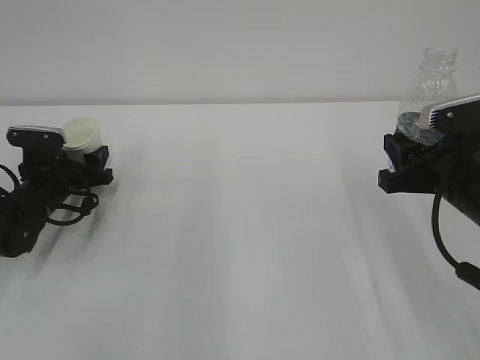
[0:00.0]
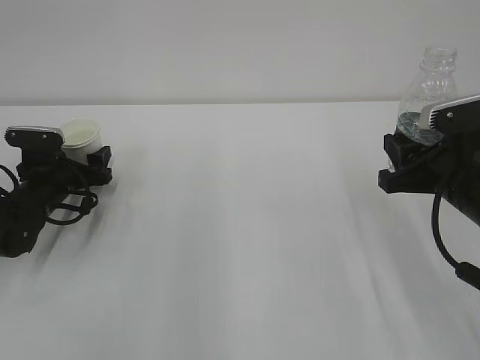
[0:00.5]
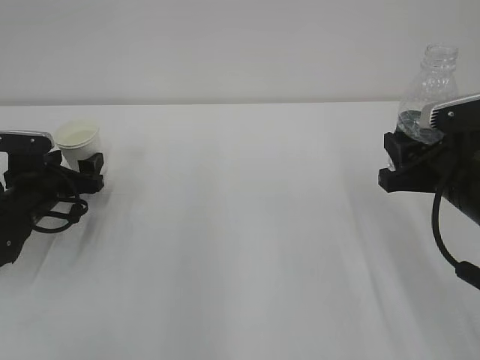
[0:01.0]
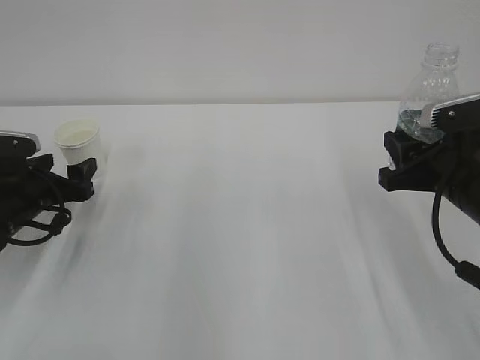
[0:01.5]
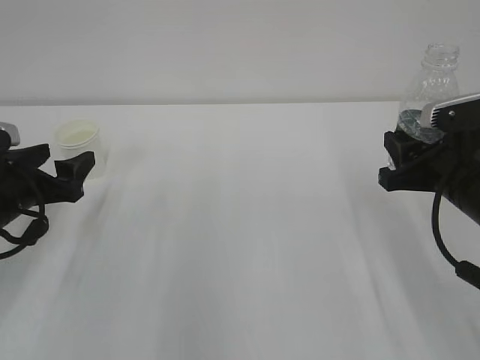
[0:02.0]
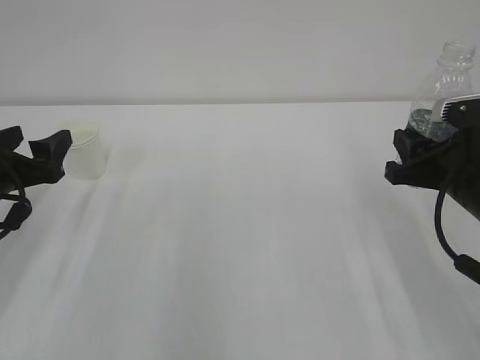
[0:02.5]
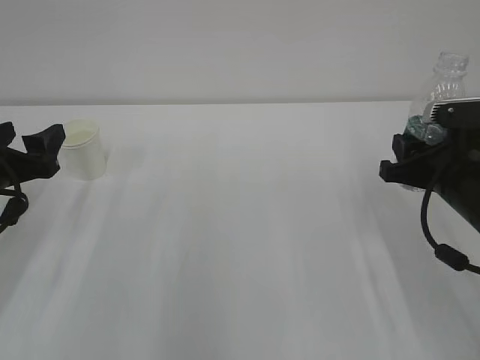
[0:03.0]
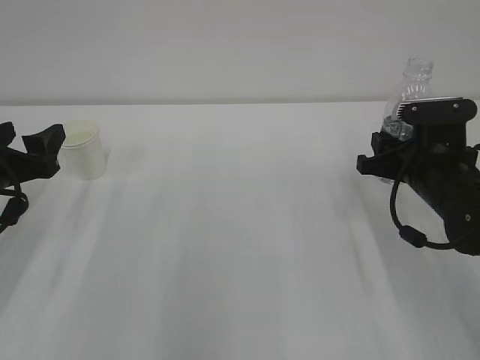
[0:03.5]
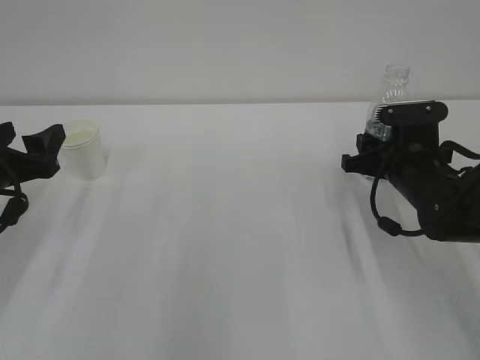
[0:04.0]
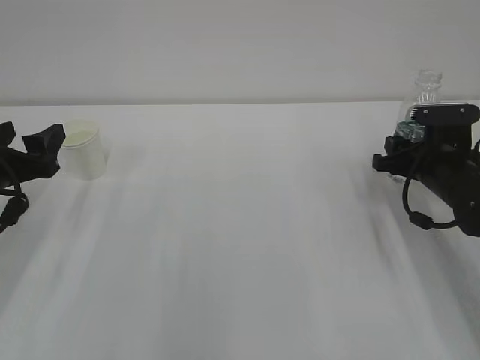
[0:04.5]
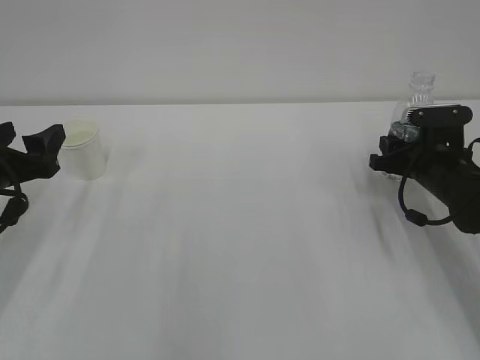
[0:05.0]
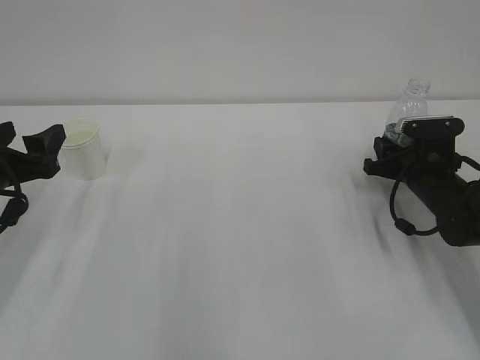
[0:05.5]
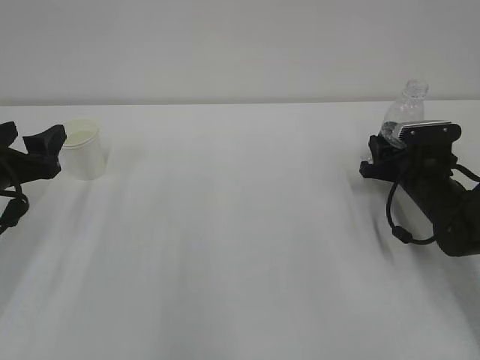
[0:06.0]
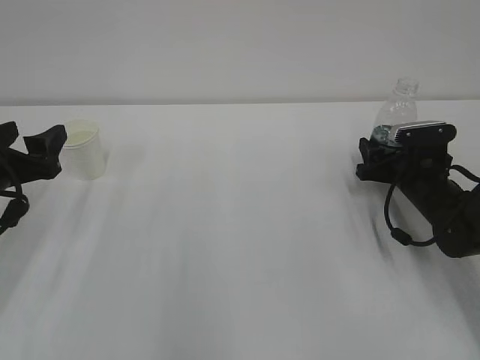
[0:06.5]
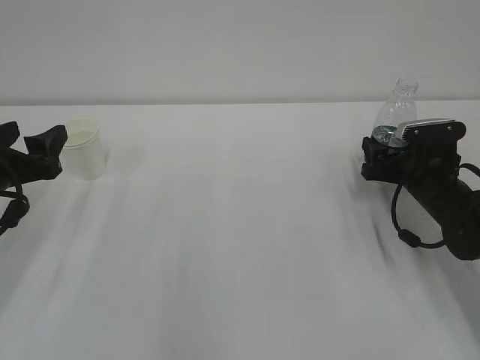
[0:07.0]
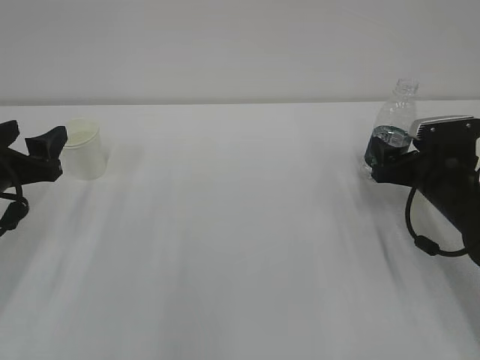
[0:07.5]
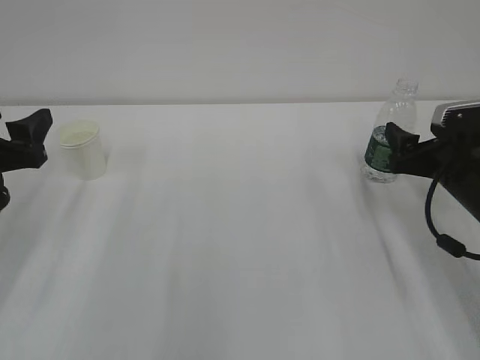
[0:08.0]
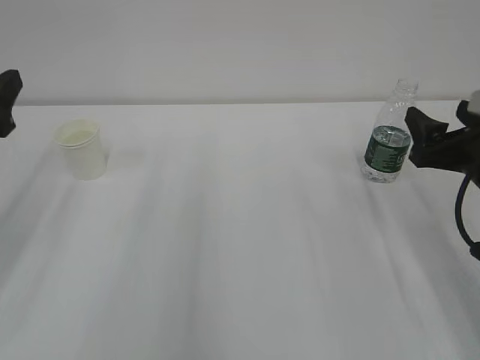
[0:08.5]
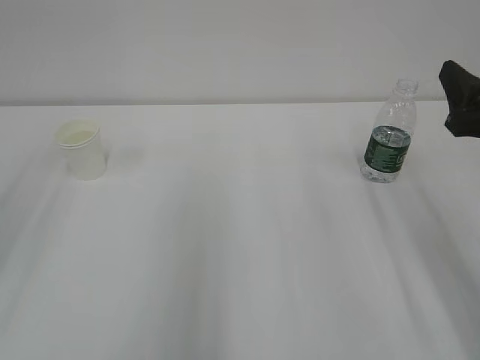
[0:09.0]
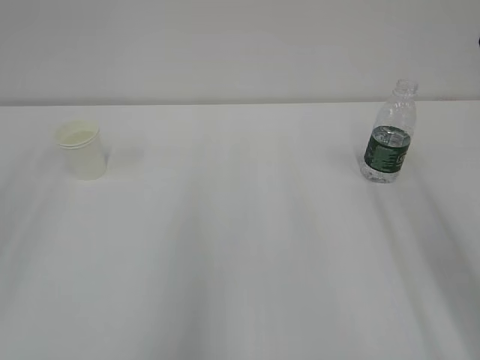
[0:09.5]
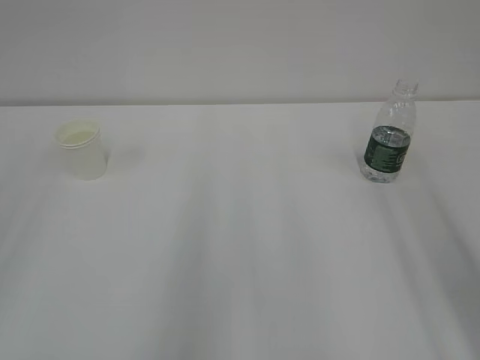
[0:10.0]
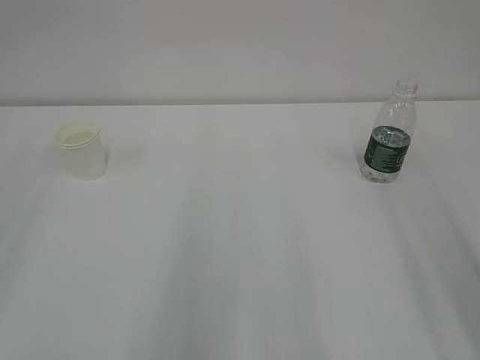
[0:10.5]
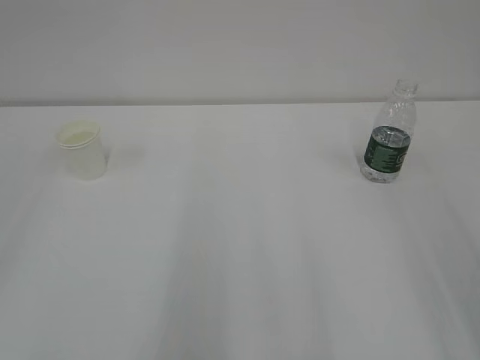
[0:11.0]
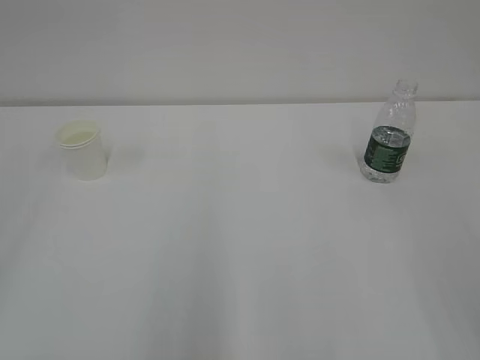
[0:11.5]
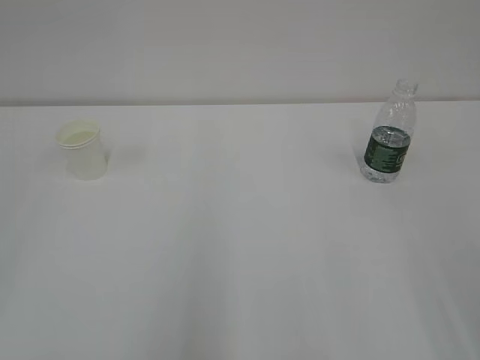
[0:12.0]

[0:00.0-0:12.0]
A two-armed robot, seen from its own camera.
0:00.0 to 0:02.0: The left gripper shifts approximately 15 cm backward and upward, and opens up.
0:02.0 to 0:04.0: The right gripper goes roughly 10 cm forward and downward.
0:04.0 to 0:06.0: The right gripper is displaced downward and to the right by roughly 5 cm.
0:06.0 to 0:08.0: The right gripper shifts approximately 10 cm upward and backward, and opens up.
0:08.0 to 0:10.0: Both grippers move upward and backward, some 25 cm.

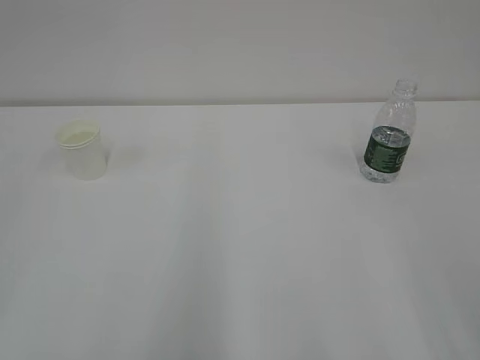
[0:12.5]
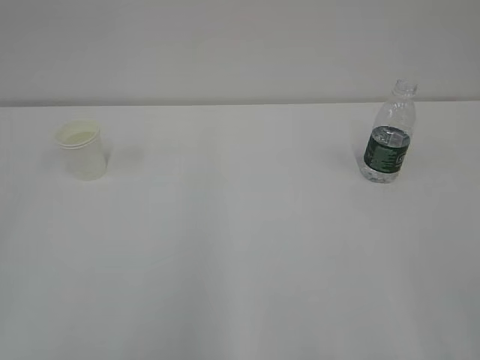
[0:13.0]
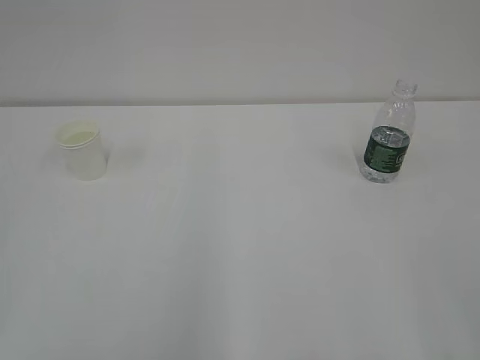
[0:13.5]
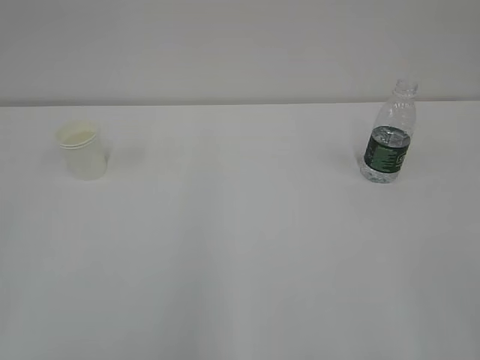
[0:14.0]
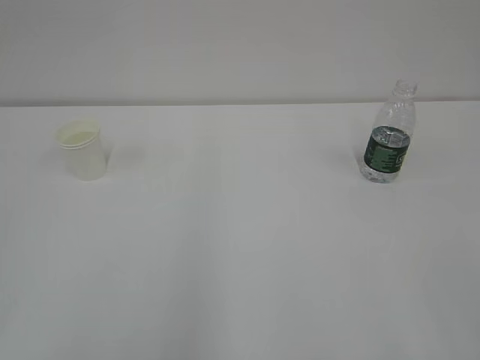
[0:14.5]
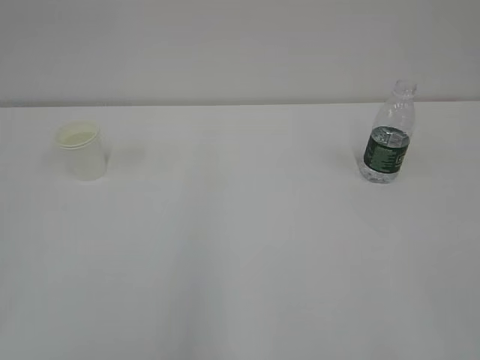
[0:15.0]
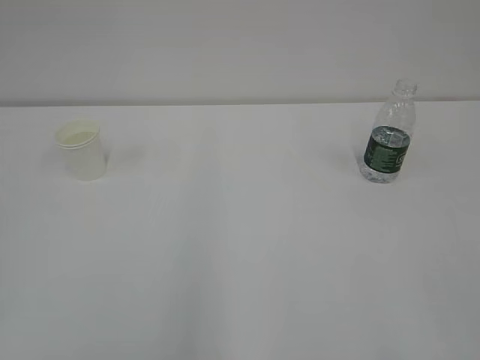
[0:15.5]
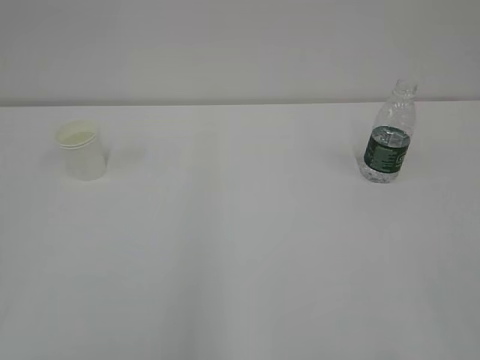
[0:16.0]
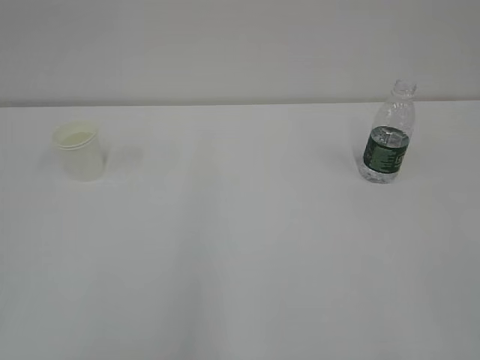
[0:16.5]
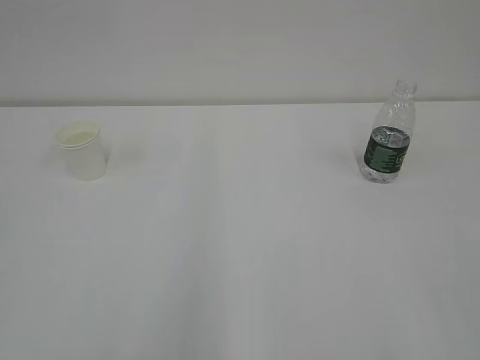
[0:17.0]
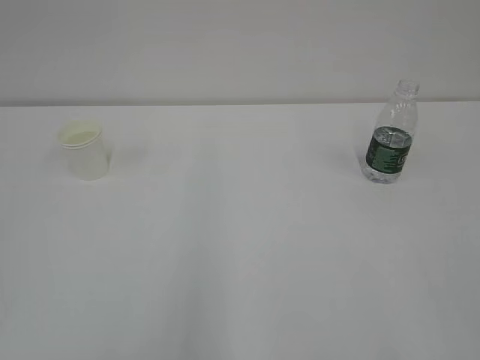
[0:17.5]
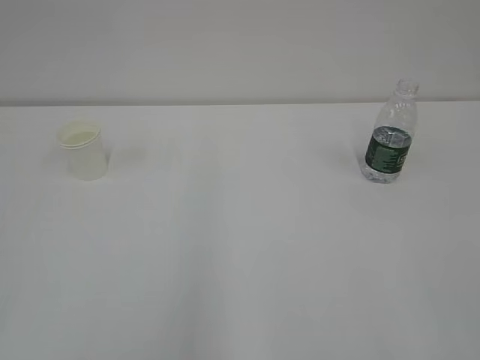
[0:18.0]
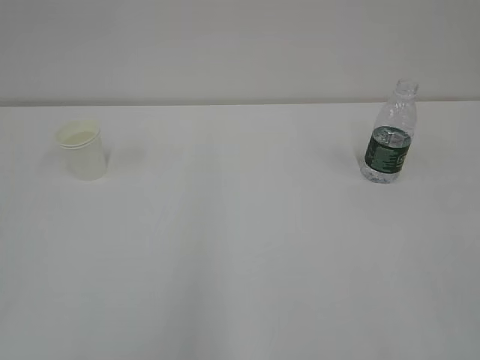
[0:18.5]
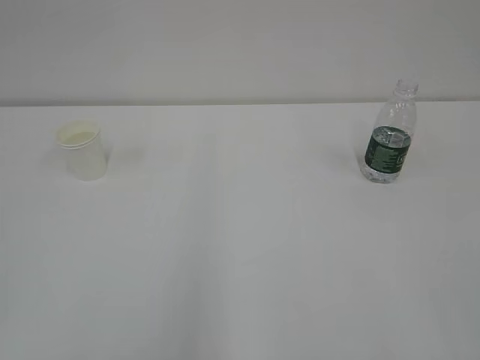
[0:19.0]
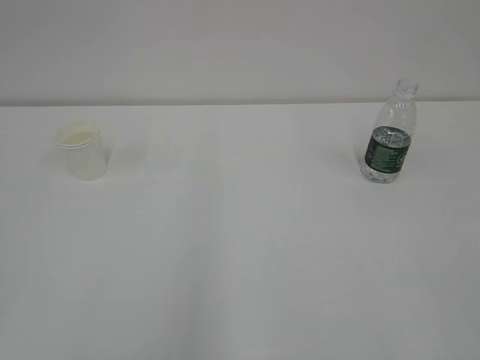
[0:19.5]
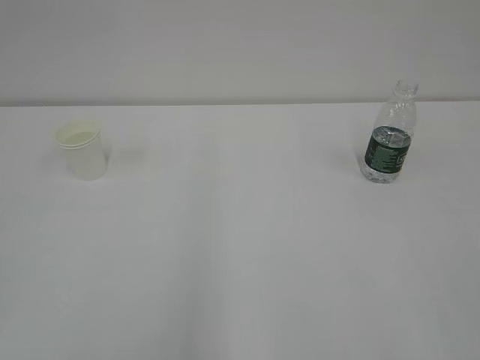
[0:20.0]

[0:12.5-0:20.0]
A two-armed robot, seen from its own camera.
0:16.5 to 0:18.0: Both grippers stay put.

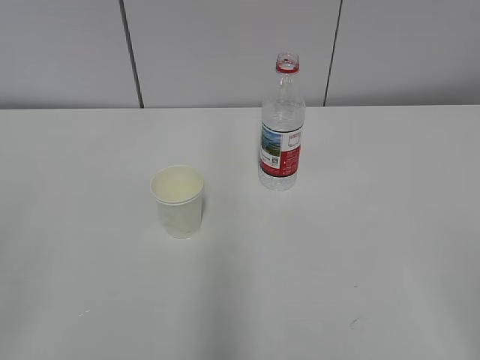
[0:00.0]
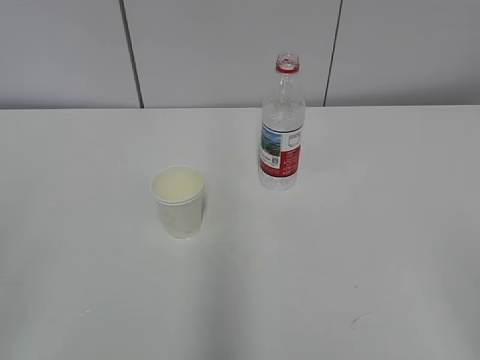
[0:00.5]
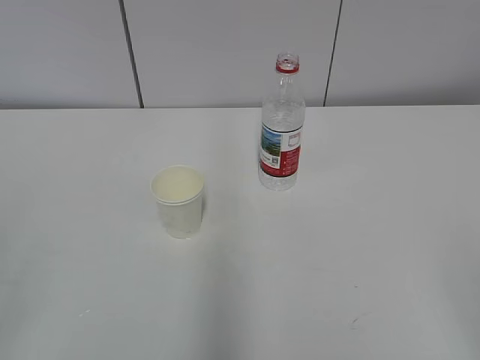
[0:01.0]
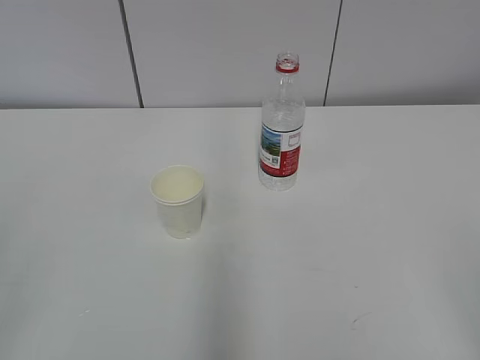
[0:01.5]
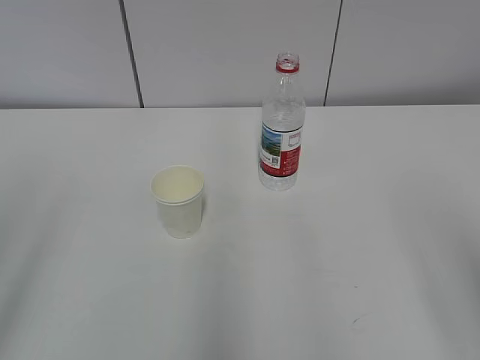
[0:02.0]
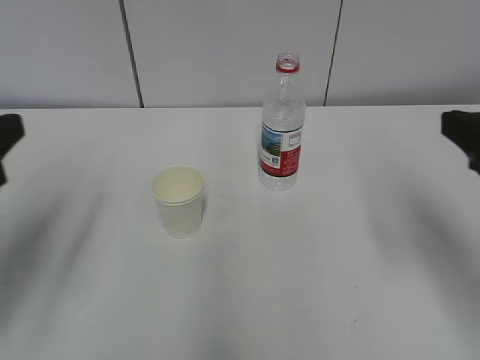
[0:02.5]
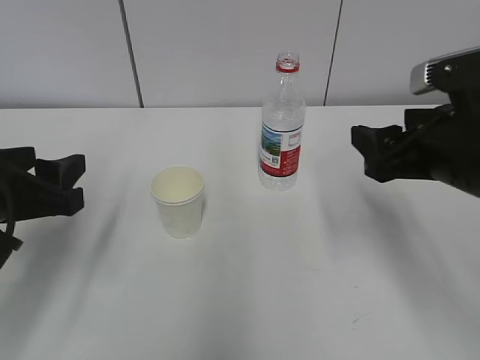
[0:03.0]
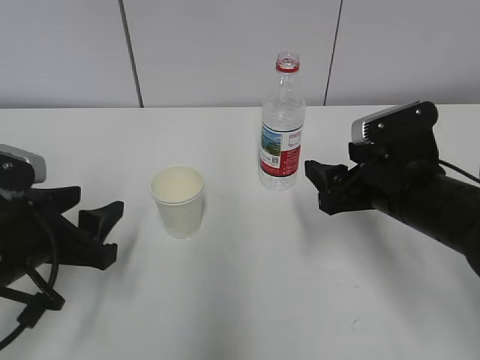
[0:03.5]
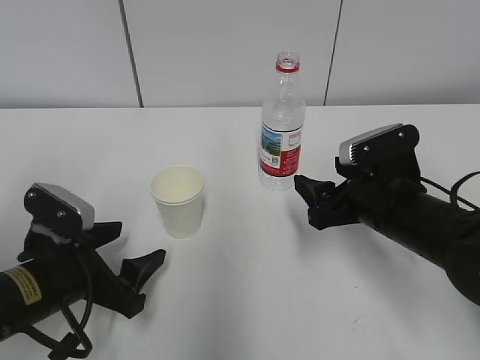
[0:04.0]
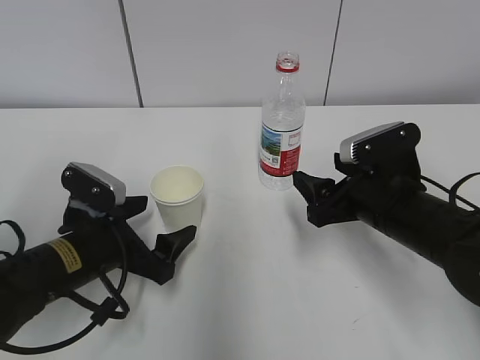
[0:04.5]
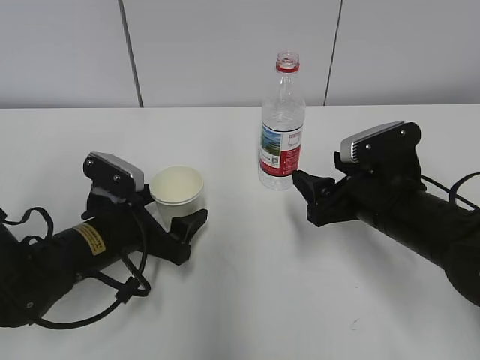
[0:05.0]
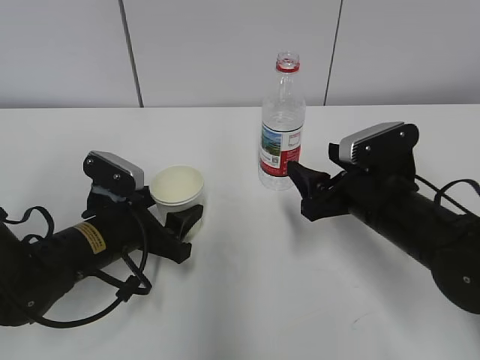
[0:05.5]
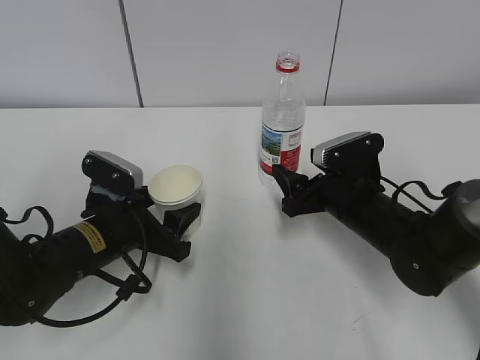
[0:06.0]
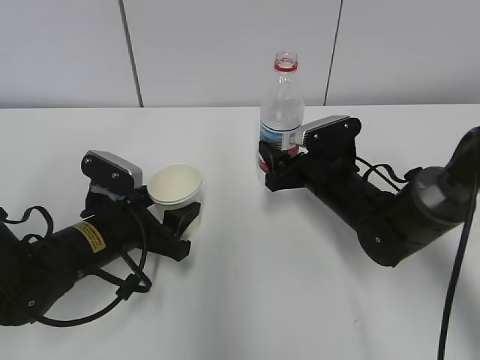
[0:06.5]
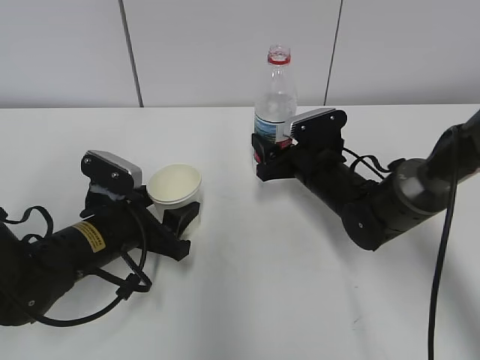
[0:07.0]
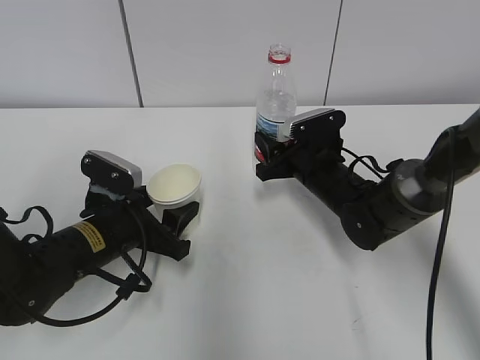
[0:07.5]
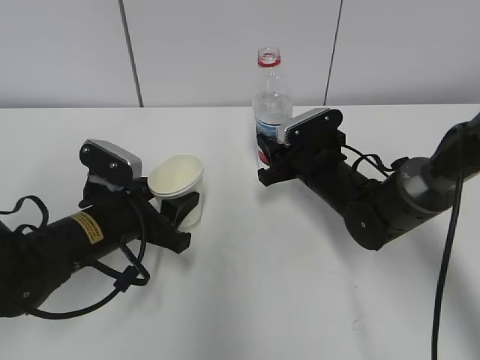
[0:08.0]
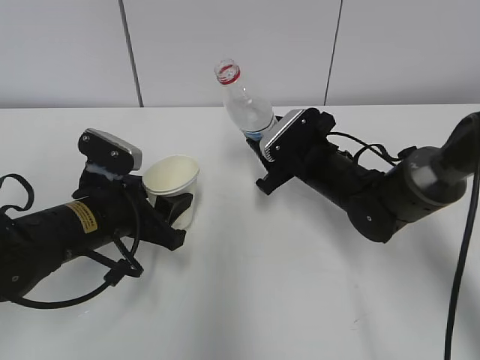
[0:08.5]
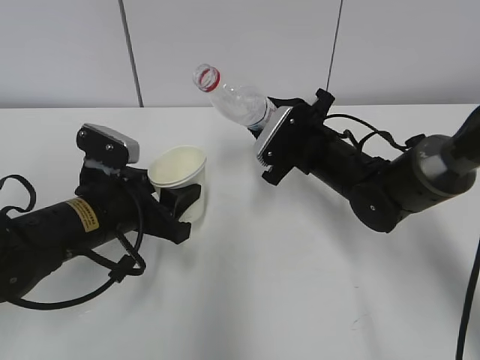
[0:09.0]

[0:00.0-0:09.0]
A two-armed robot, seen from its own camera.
Step, 0:00.0 to 0:04.5: Grab the paper cup with the left hand.
Step, 0:05.0 to 0:06.0: Grab the water bottle with the right hand.
0:02.0 to 0:04.5: The right gripper heads forward, downward and to the left, covering about 30 cm. The left gripper shifts approximately 35 cm downward, forward and to the right, and opens.
0:04.5 to 0:07.0: The right gripper travels forward and downward by about 15 cm. Meanwhile the left gripper closes its fingers.
0:07.0 to 0:09.0: The right gripper closes up.
